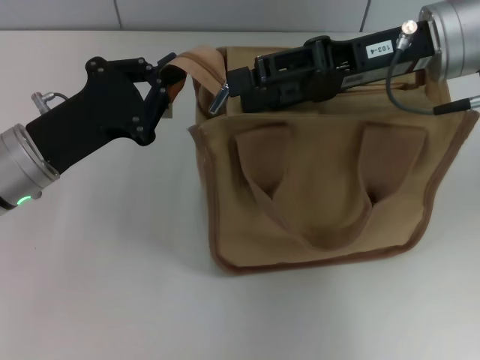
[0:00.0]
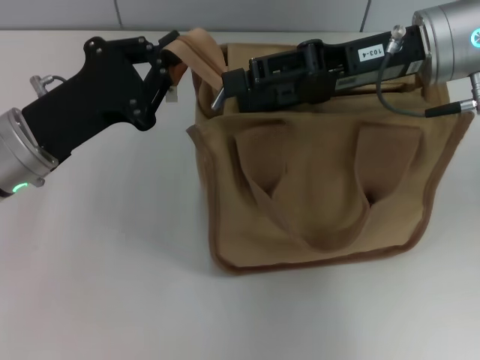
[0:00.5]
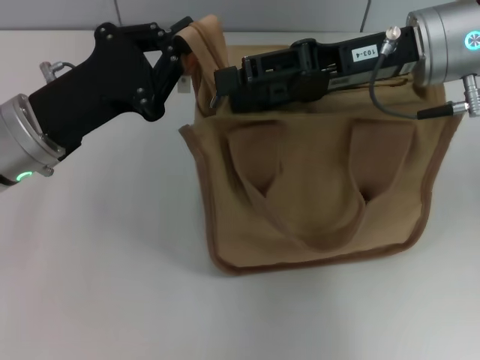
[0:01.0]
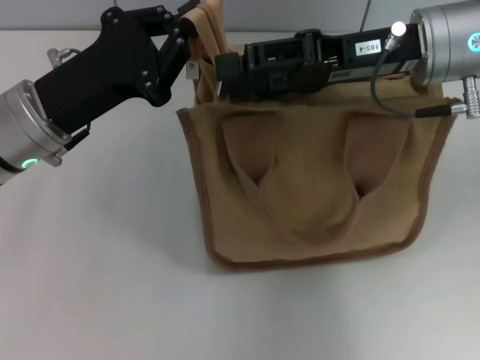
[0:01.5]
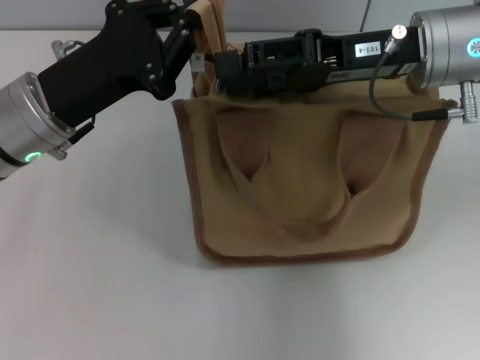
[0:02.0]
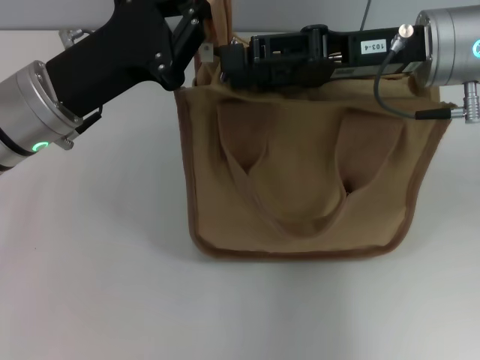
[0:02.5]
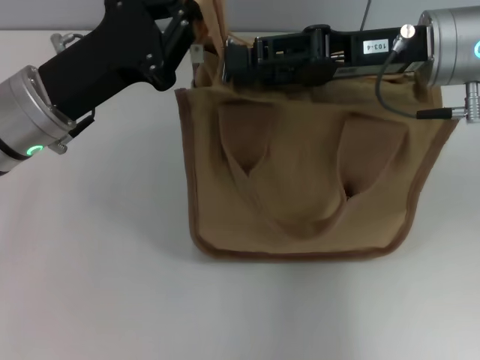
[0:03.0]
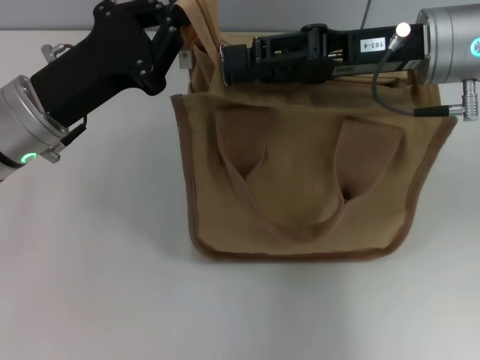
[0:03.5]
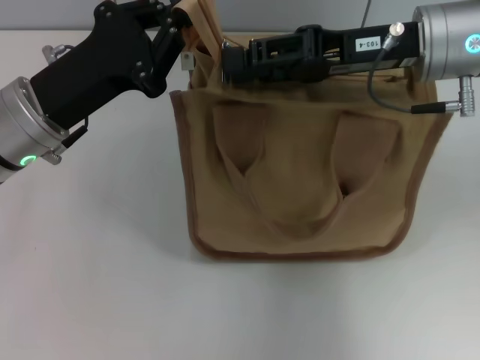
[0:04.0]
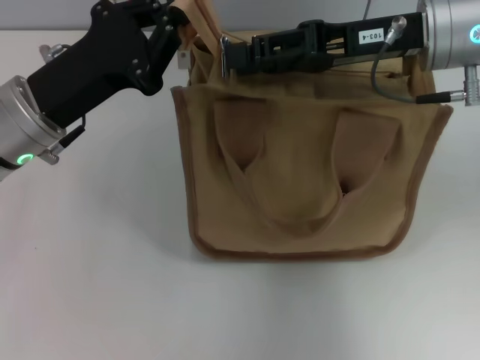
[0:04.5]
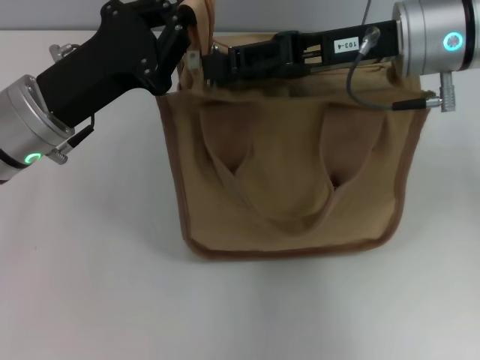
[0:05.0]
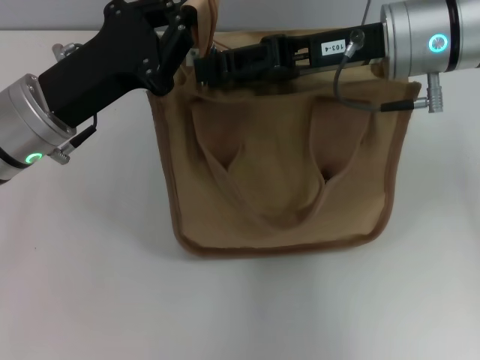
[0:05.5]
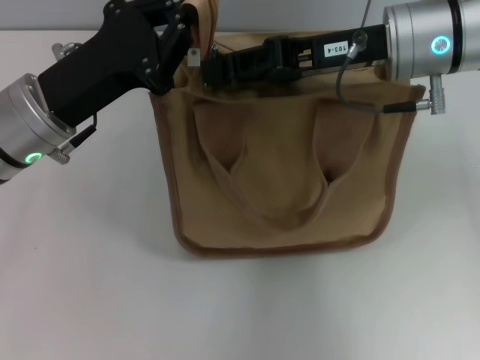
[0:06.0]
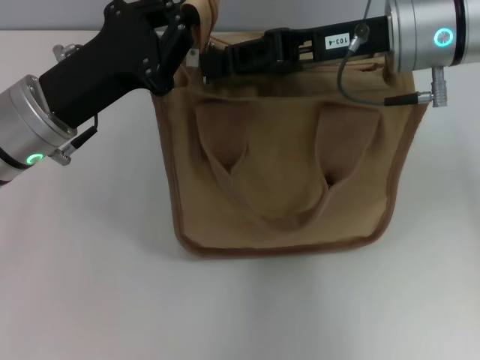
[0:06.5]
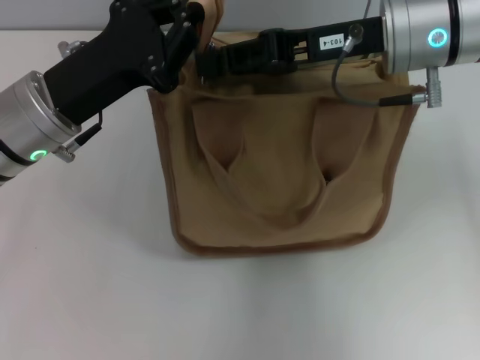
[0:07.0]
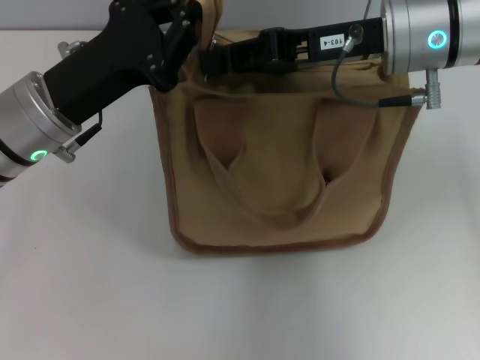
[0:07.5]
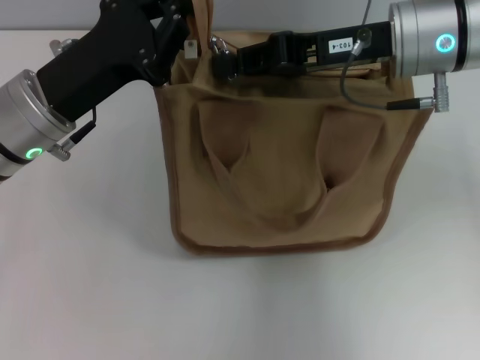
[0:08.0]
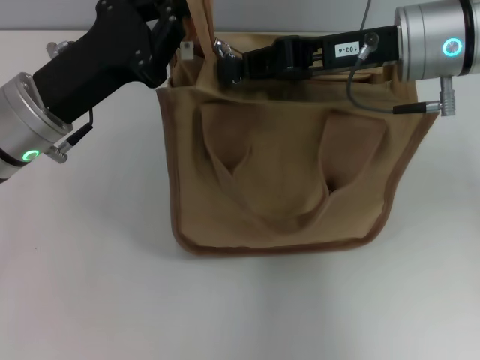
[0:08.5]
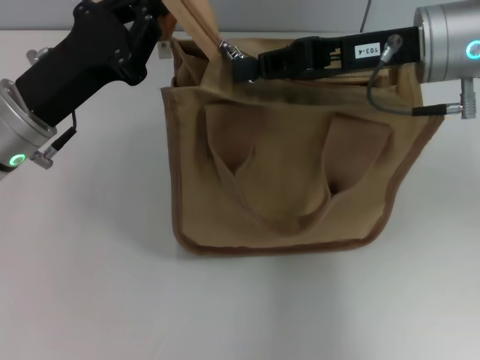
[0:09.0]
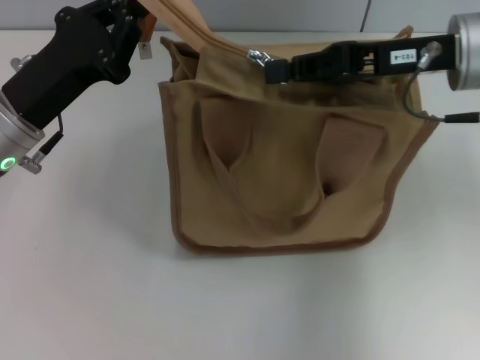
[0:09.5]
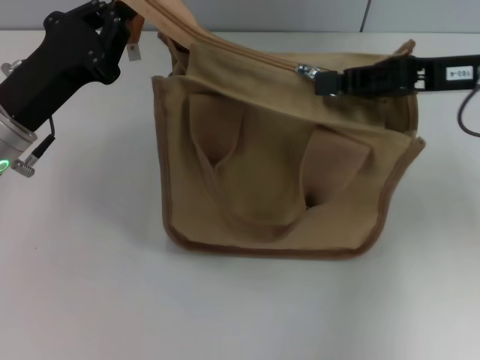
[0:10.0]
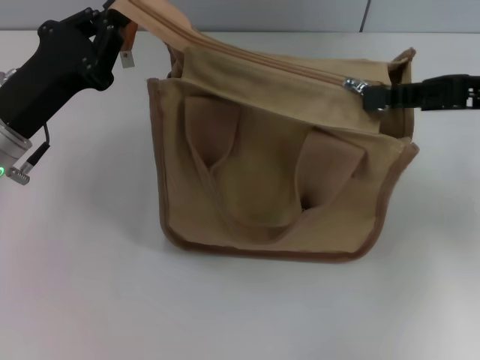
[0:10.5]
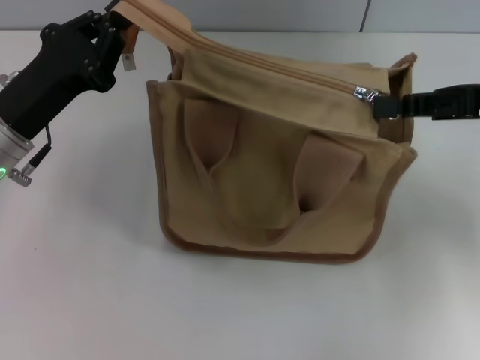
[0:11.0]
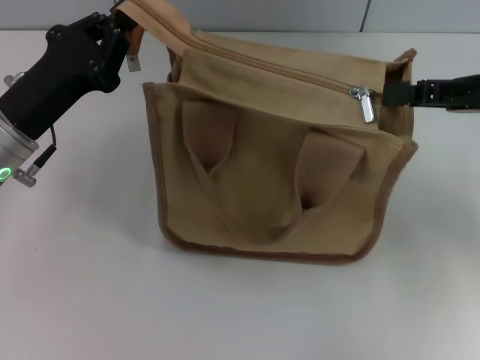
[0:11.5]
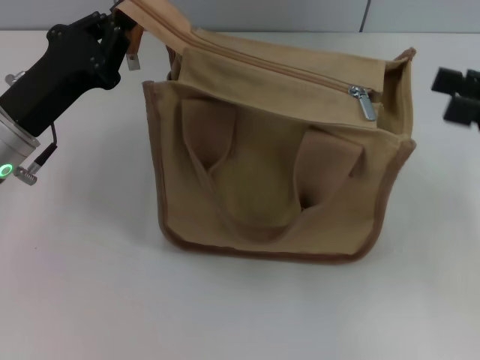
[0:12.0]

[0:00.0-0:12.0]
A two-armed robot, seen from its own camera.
Step, 0:00.0 to 0:11.0: Pull up the zipper with your right hand.
0:02.0 to 0:04.0: Both grippers stay put.
0:04.0 to 0:06.0: The grippers make only small movements.
0:06.0 to 0:08.0: Neither gripper changes place.
0:08.0 to 0:10.0: The right gripper goes some 10 cm to the right.
0:10.0 to 0:12.0: The right gripper shifts some 10 cm to the right and backward, and opens.

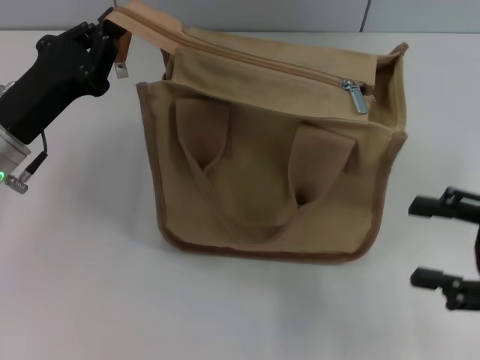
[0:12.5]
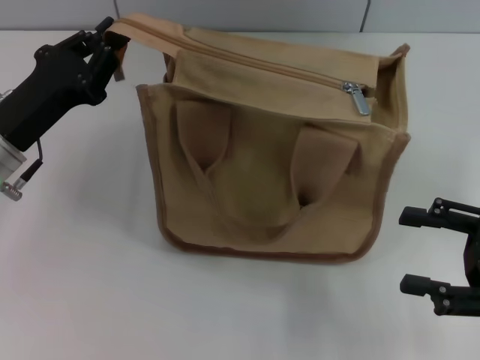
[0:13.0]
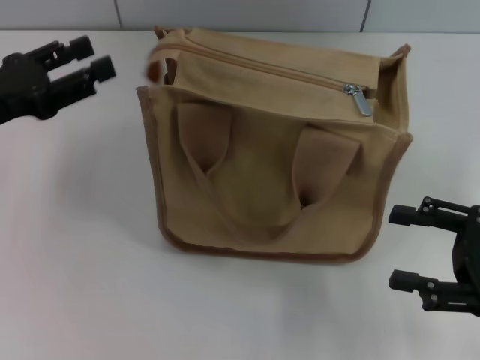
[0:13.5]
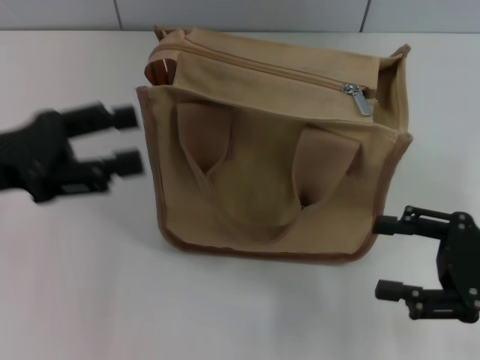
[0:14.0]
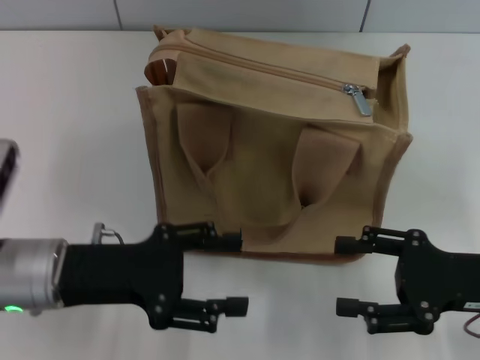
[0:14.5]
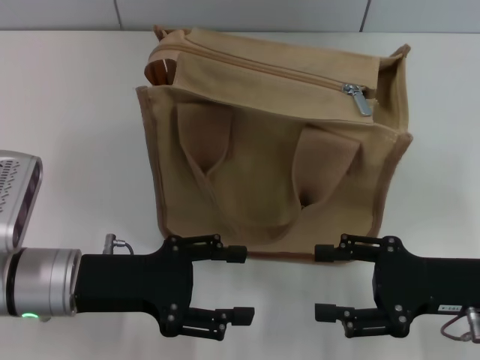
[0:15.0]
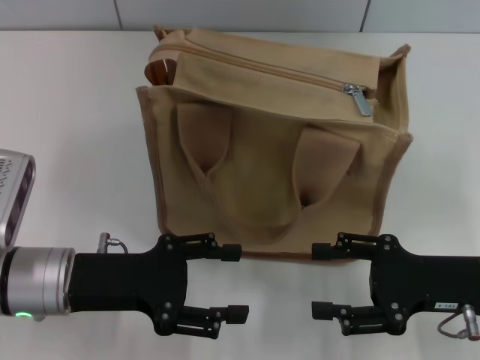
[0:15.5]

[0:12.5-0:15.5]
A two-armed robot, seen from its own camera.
0:12.5 to 0:14.0: The left gripper moves upward, approximately 5 cm, and opens its fingers.
0:14.0 to 0:15.5: The right gripper changes place by approximately 5 cm. The left gripper travels downward and to the right by some 10 cm.

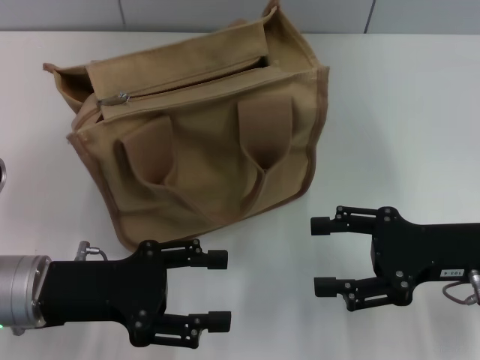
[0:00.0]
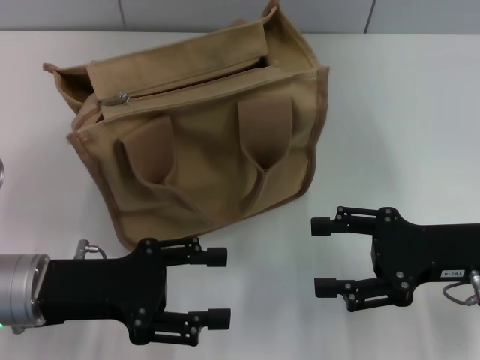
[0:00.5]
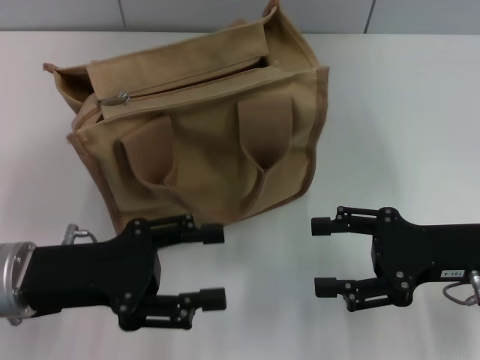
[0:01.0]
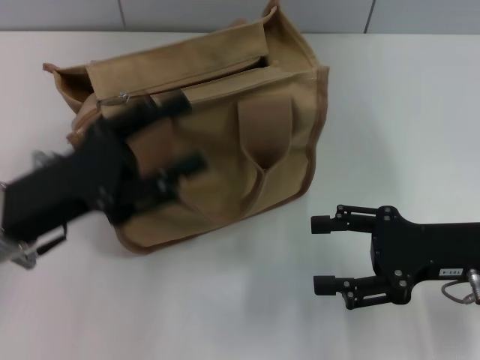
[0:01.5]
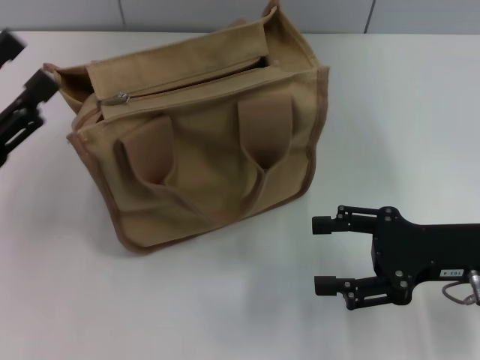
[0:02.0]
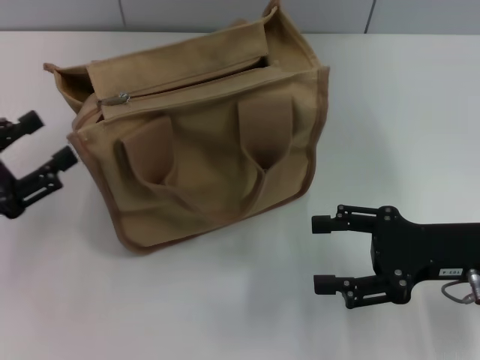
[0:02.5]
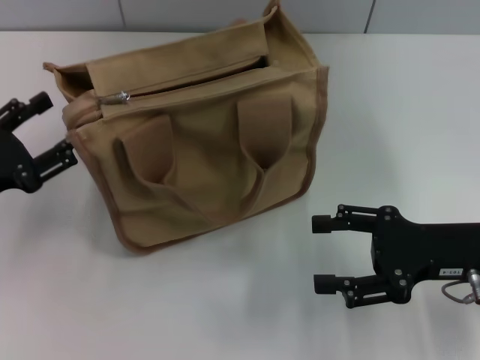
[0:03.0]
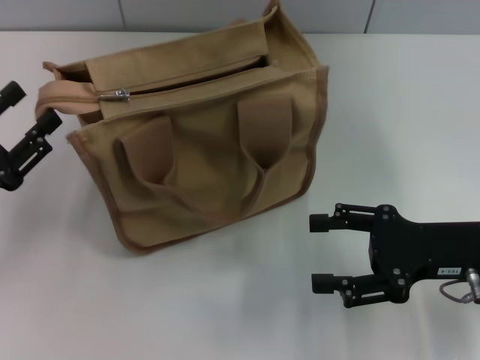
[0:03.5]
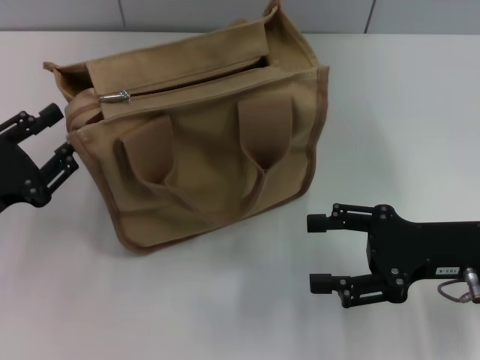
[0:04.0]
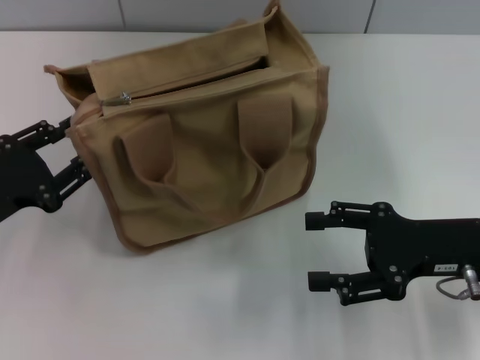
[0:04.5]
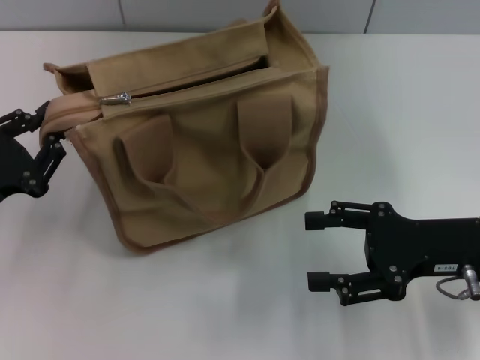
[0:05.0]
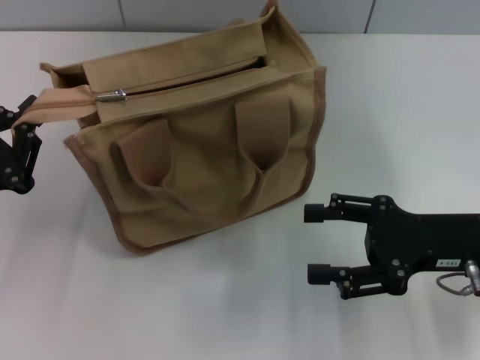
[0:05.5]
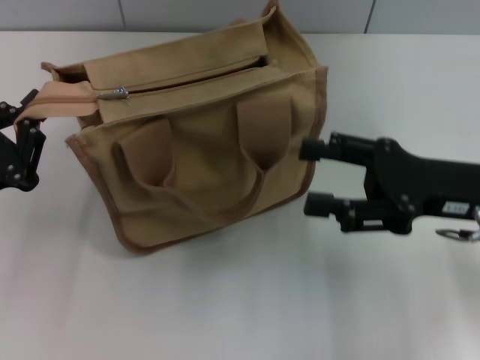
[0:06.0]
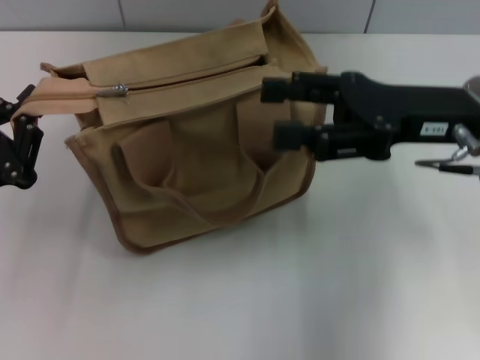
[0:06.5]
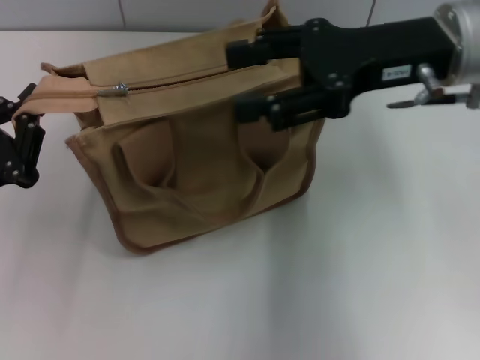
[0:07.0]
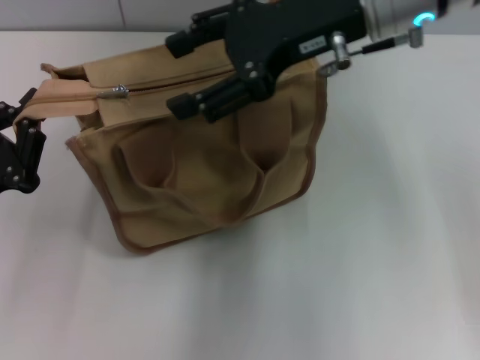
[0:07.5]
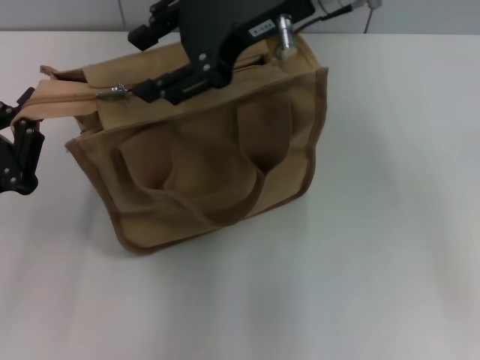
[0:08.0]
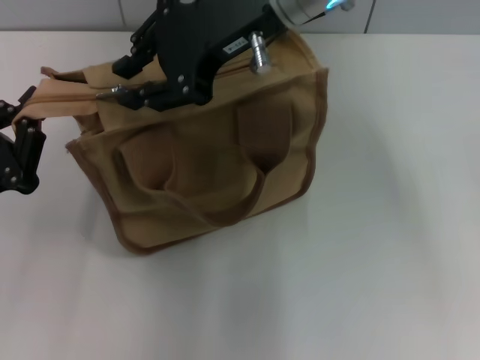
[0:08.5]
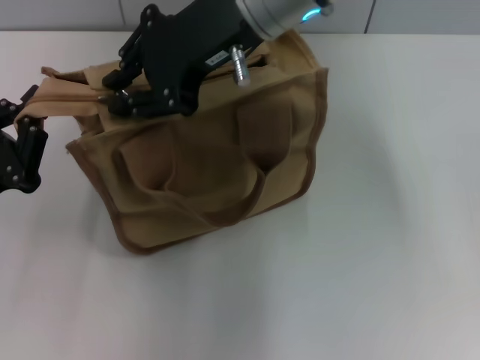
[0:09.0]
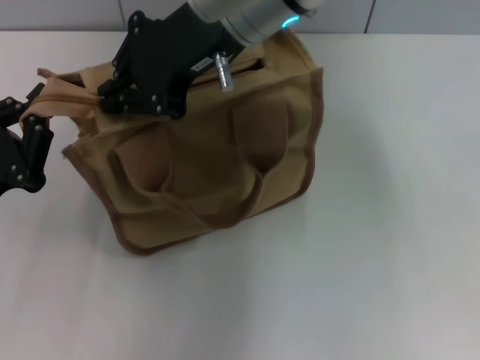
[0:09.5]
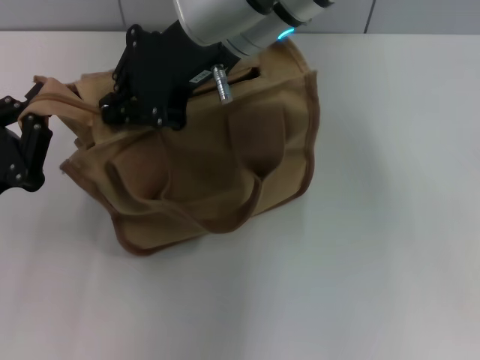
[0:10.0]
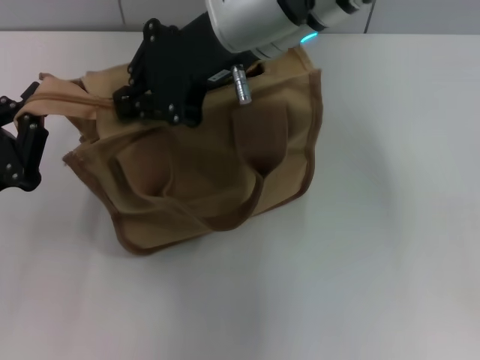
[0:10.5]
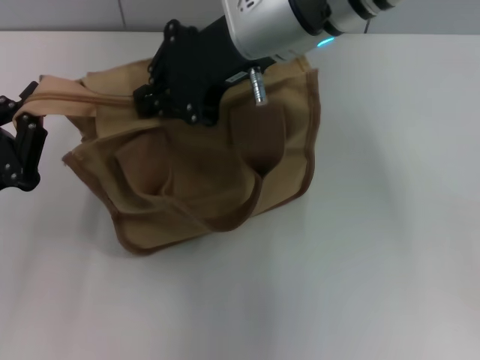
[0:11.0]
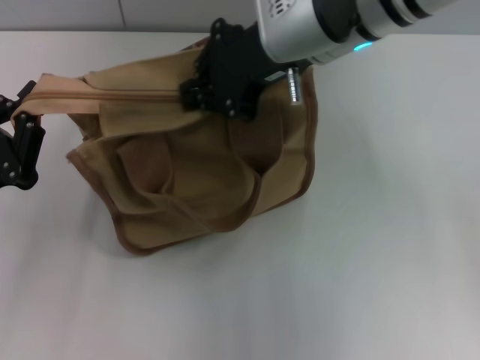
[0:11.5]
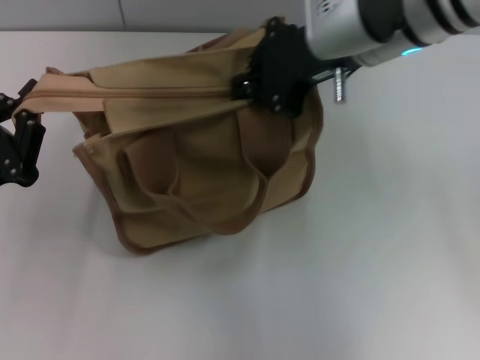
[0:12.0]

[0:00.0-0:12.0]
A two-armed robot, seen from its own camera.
0:00.0 to 0:02.0: The left gripper shifts about 10 cm to the left.
0:04.0 to 0:06.0: The right gripper changes place by roughly 5 cm; the left gripper closes up.
0:06.0 to 0:08.0: The right gripper shifts about 25 cm to the left, upward and forward.
0:08.0 to 0:10.0: The right gripper goes approximately 5 cm to the left, and closes its fingers.
0:10.0 to 0:12.0: The right gripper goes some 10 cm to the right.
